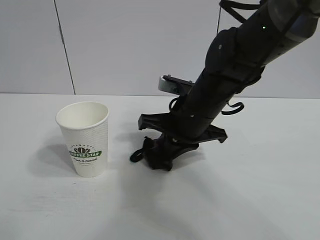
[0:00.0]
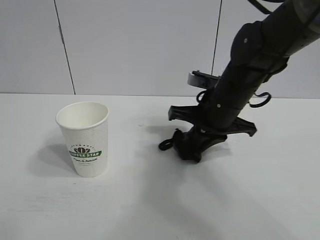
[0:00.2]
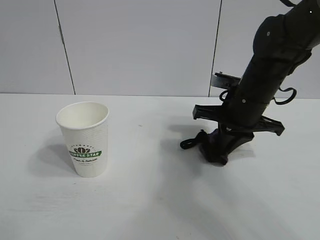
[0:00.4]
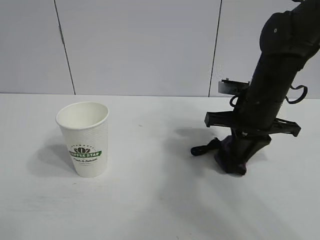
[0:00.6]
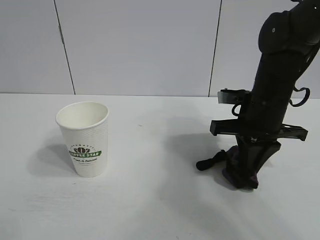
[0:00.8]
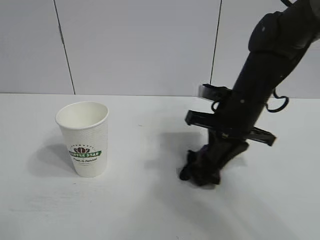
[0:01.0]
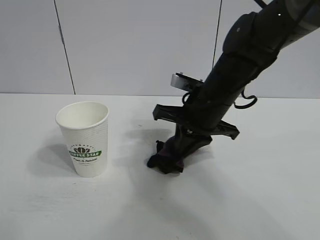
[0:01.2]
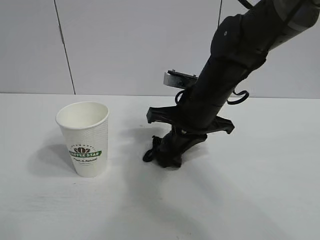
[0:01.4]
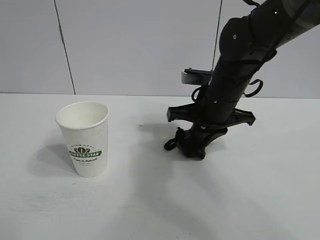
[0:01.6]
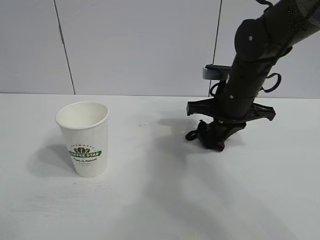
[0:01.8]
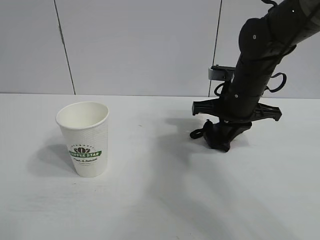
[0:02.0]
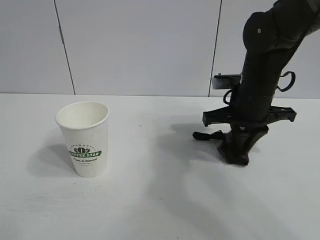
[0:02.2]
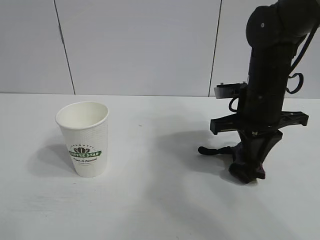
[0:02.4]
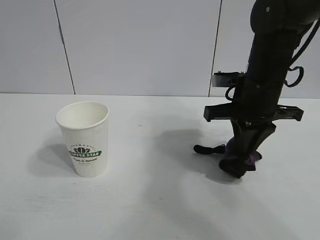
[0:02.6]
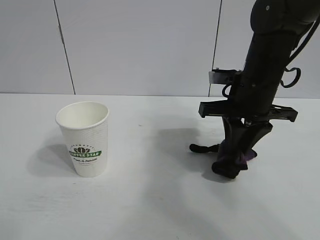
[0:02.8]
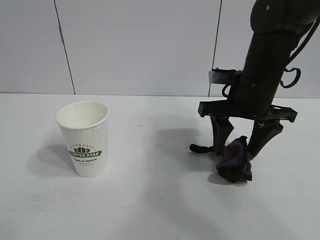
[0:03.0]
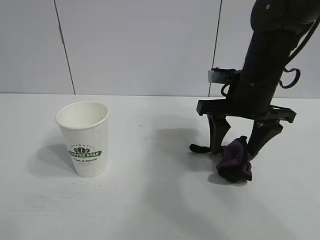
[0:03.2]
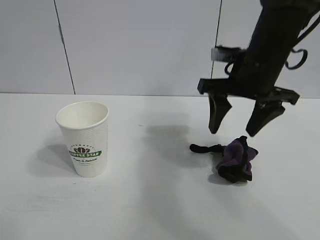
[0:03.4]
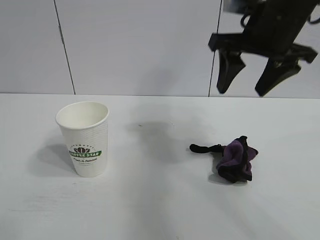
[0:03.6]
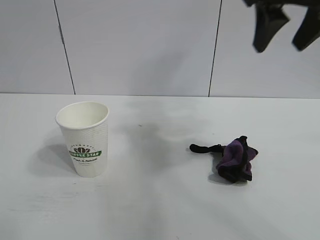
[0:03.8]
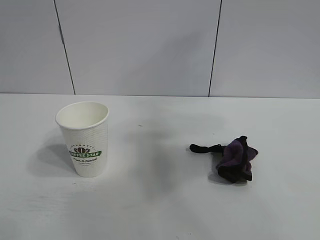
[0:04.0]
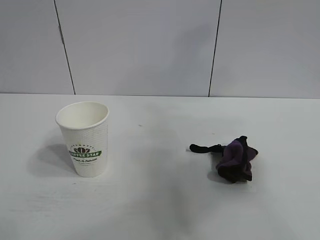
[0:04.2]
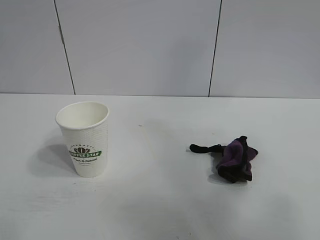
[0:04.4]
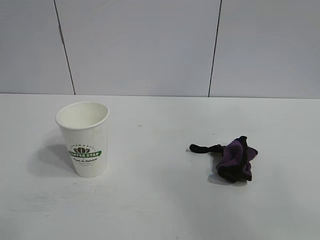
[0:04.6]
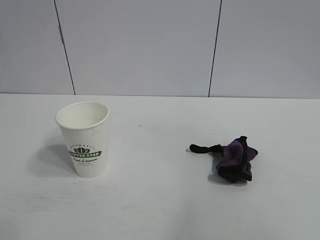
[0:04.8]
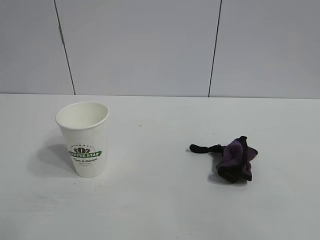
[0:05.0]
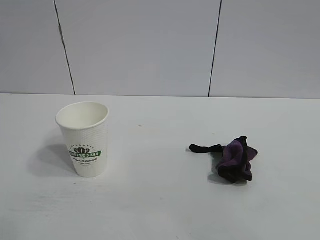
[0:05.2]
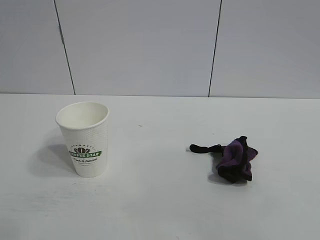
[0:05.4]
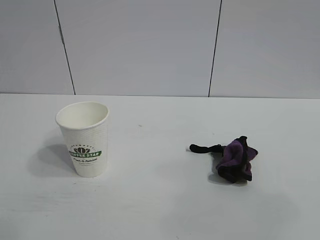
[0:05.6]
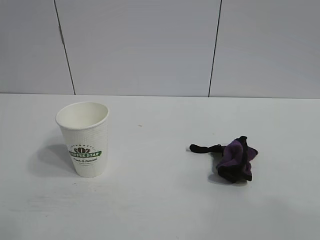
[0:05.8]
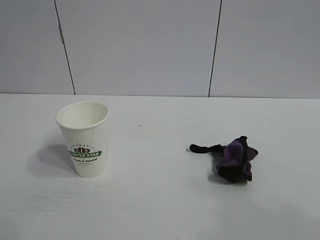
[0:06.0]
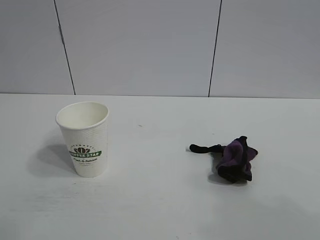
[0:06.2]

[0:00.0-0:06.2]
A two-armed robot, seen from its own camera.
Task of the whole recording: the left gripper pick up the fallen cup and place it upright, the right gripper grasp the black rag and wipe the stain on the table, the right gripper put the black rag back in its original position.
Step, 0:00.0 to 0:02.2: Wipe the stains off the table with the rag with right gripper.
Step, 0:02.6 to 0:02.8: Place the rag on the table with right gripper.
